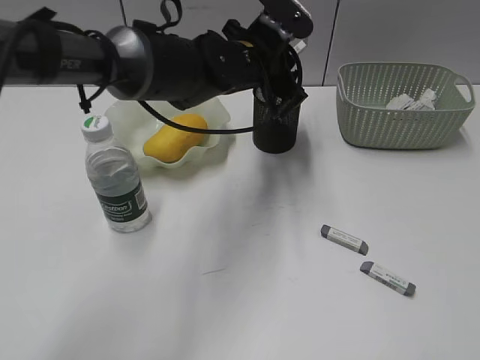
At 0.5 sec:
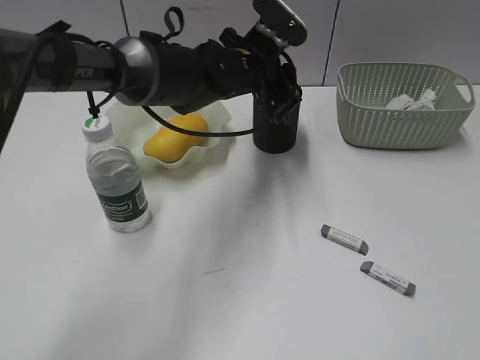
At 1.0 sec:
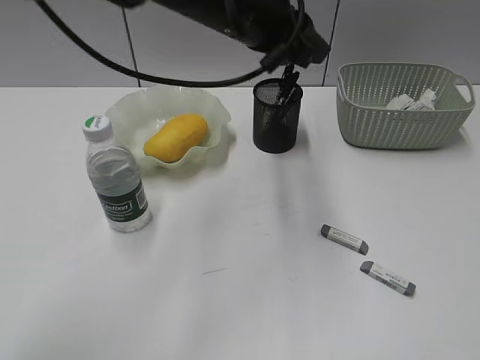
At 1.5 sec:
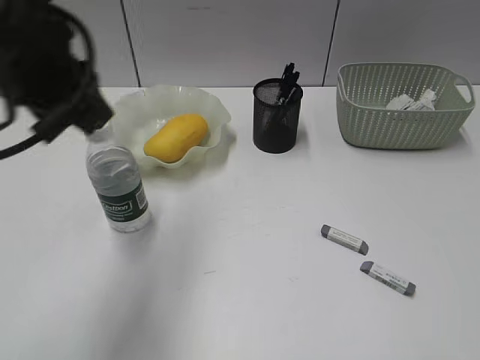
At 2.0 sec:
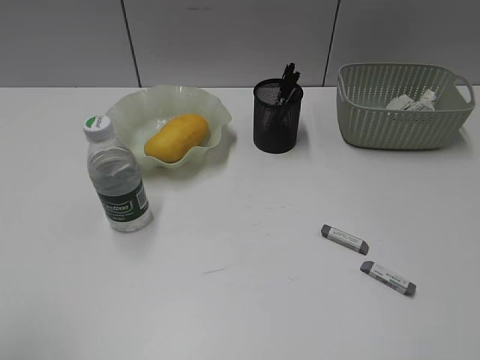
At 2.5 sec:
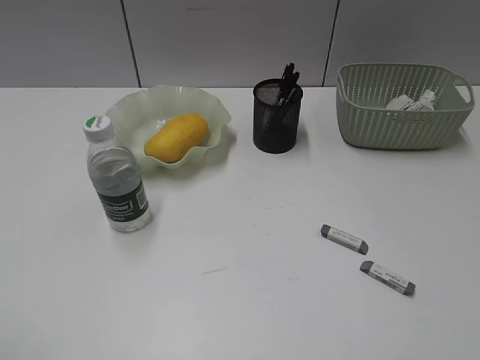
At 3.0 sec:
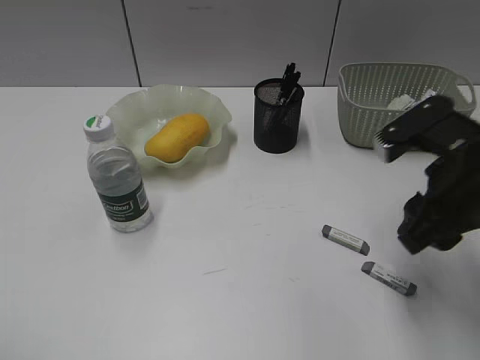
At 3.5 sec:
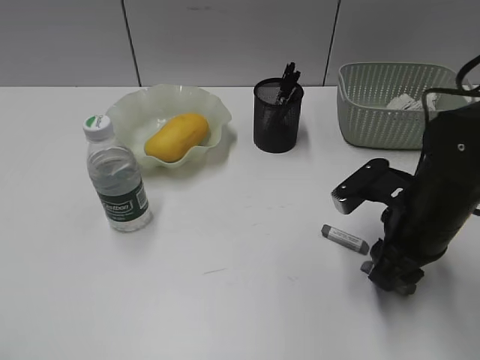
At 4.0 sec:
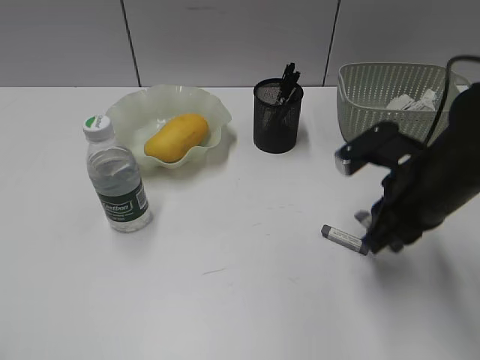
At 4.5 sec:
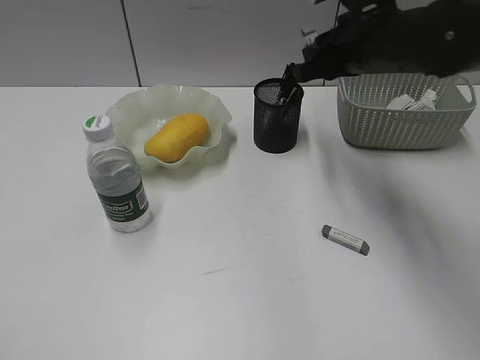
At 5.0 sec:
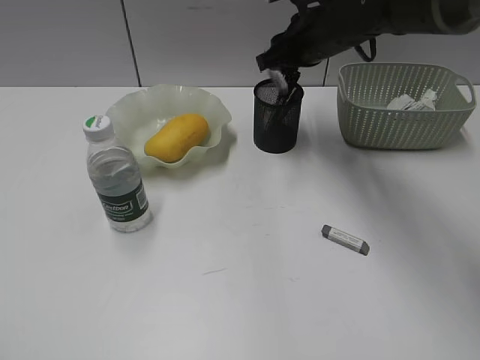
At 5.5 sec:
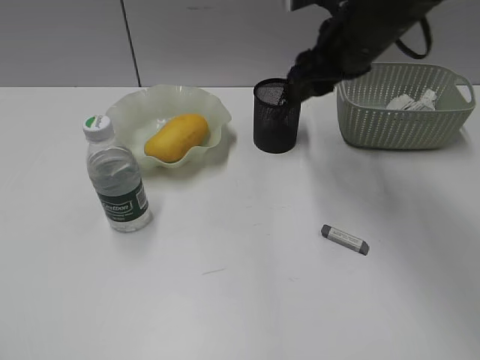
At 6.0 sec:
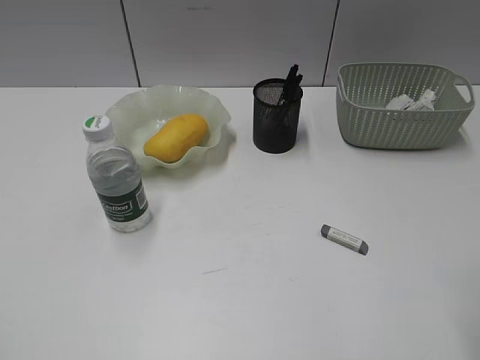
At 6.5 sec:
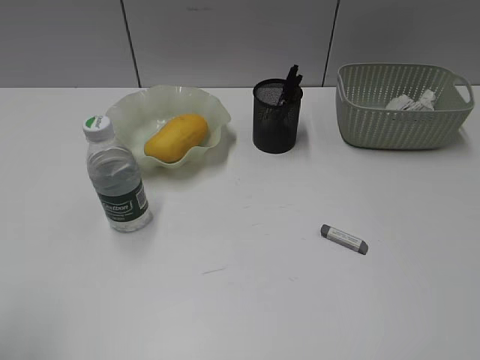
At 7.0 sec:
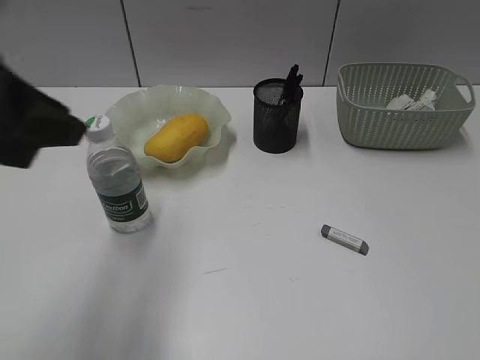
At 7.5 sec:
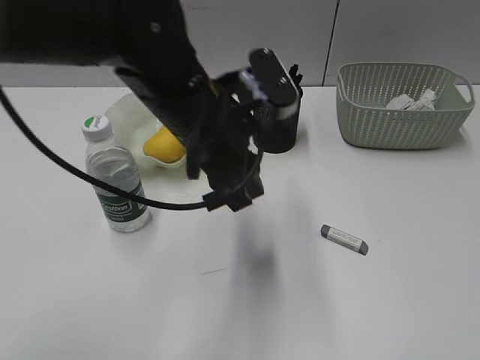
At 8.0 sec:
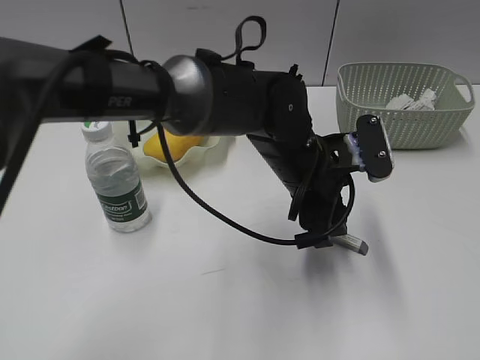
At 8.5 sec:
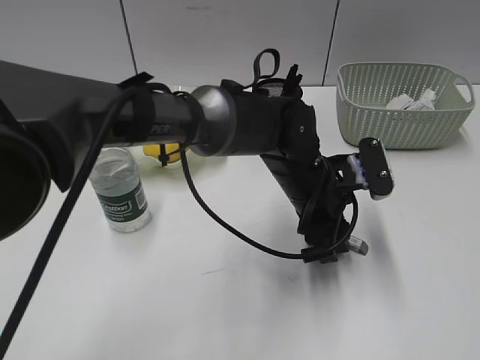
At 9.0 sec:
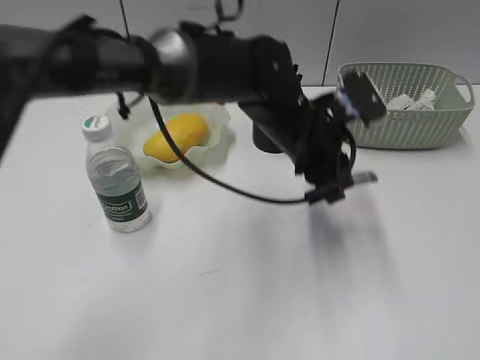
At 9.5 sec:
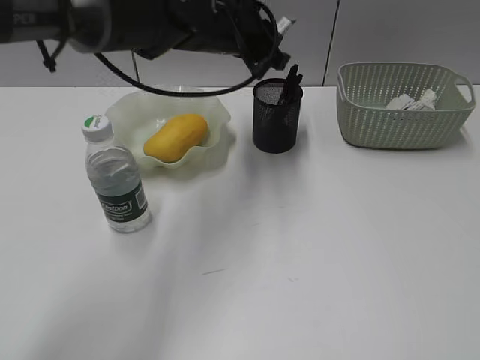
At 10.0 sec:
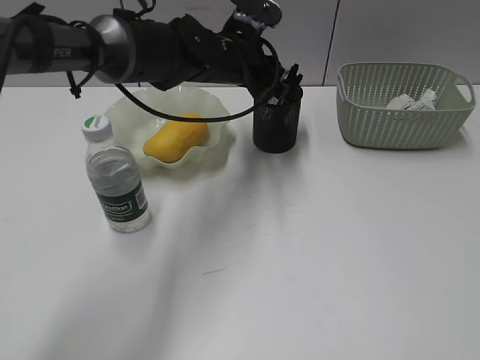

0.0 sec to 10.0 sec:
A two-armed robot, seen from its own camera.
Step, 1.0 sec to 3.5 sec: Grasp the eraser with right gripper.
Step, 4.0 sec to 5.0 sec: Place the eraser in pen holder with right gripper.
Step, 5.5 sec to 8.5 sec: Grasp the eraser with left gripper.
0.0 sec to 2.0 sec: The left gripper travels backward and to the left by approximately 50 cm, and opens up.
2.0 sec to 4.0 sec: The right gripper heads forward, downward and to the left, covering about 30 cm.
4.0 sec to 6.0 sec: The right gripper travels backward, upward and to the right by approximately 20 cm.
6.0 sec to 8.0 sec: The right gripper moves backward and to the right, some 15 cm, while the left gripper heads to the right and forward, covering about 50 cm.
8.0 sec to 10.0 sec: The left gripper travels forward and to the left by some 15 cm.

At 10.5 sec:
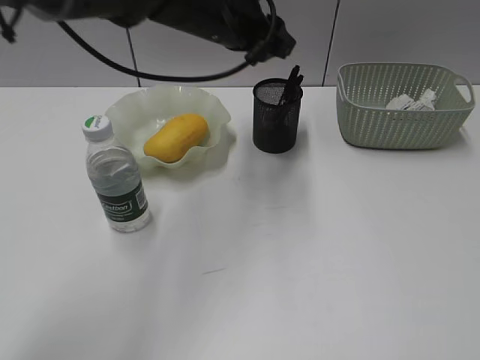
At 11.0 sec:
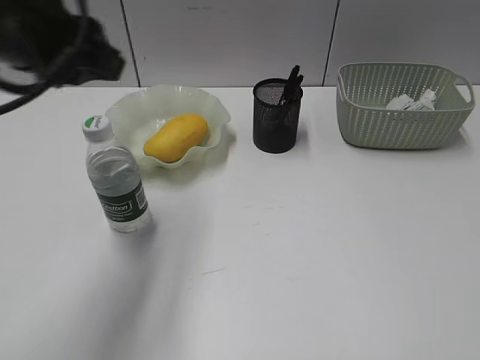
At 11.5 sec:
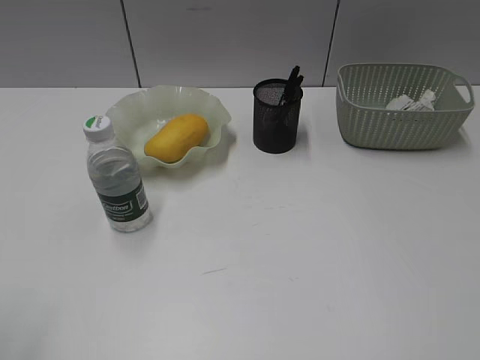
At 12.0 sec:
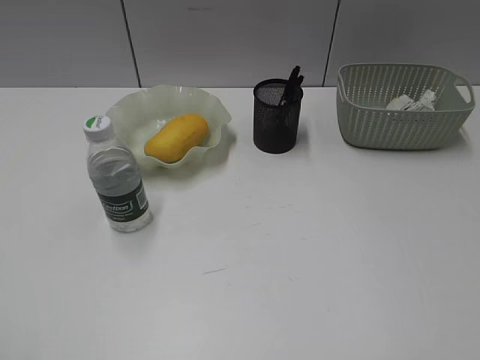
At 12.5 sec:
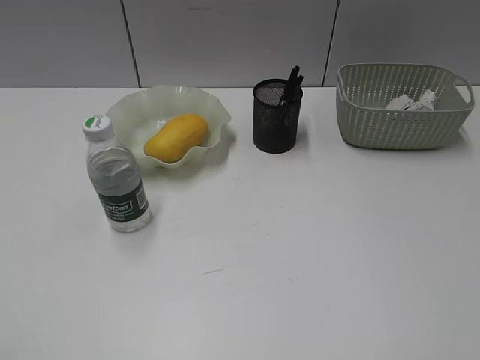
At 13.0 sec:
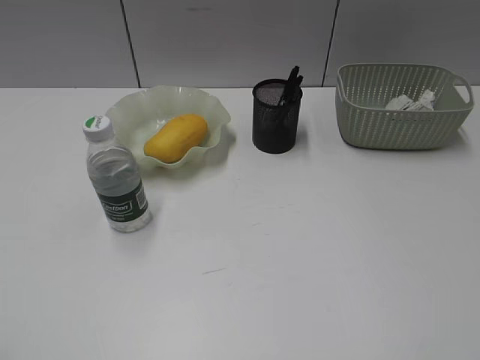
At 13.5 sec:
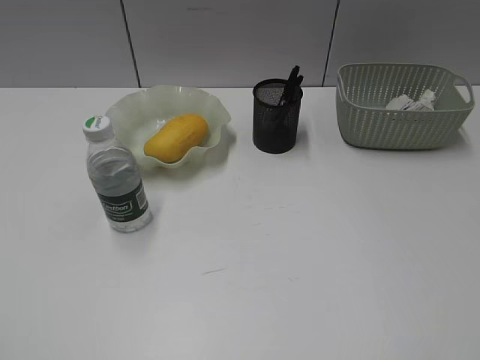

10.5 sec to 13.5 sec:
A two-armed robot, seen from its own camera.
10.5 sec to 12.0 sec: The left gripper moves backward and to the left, approximately 50 cm.
